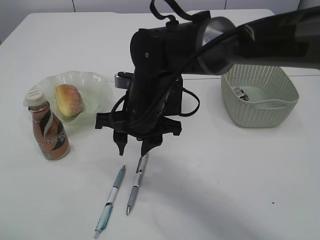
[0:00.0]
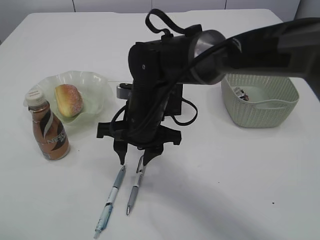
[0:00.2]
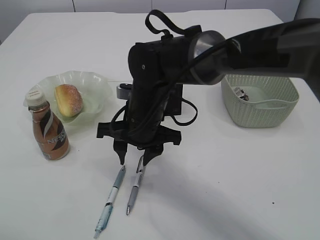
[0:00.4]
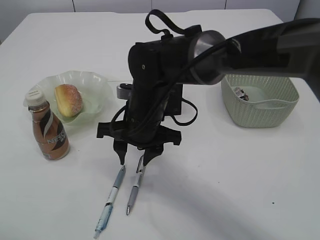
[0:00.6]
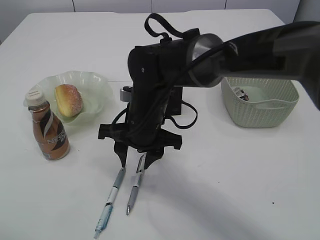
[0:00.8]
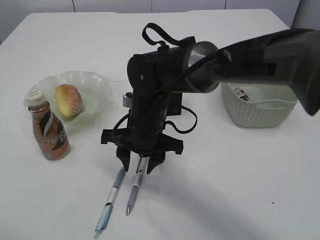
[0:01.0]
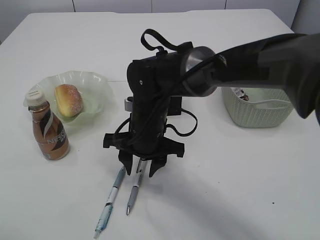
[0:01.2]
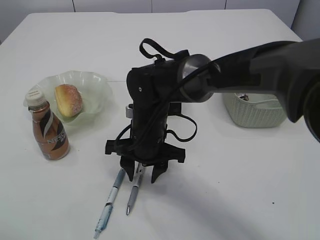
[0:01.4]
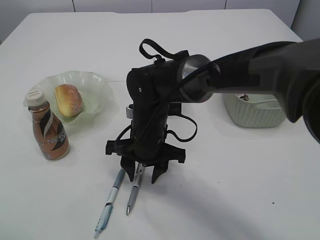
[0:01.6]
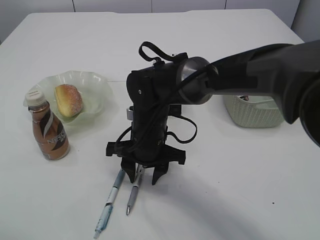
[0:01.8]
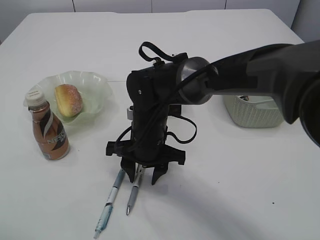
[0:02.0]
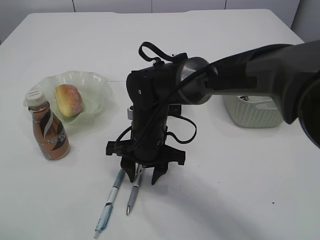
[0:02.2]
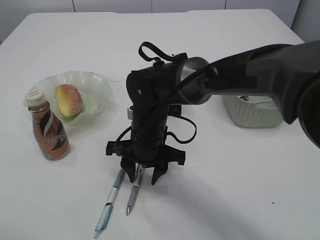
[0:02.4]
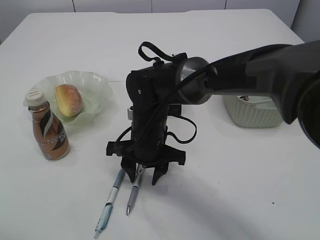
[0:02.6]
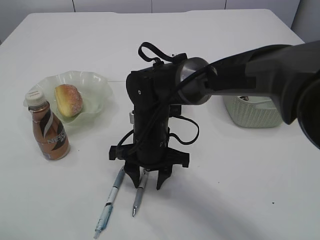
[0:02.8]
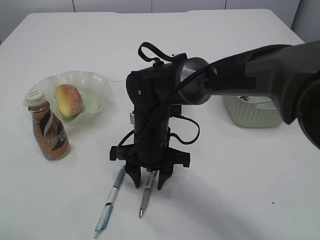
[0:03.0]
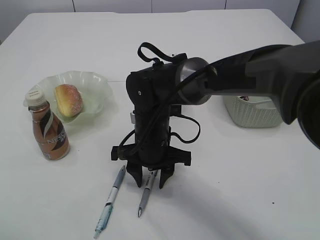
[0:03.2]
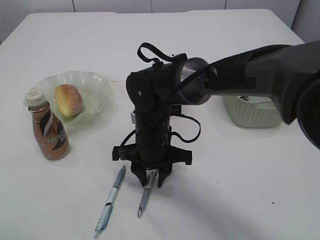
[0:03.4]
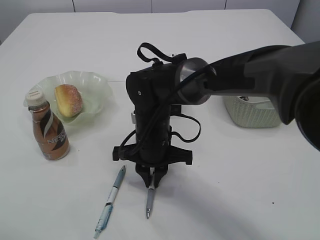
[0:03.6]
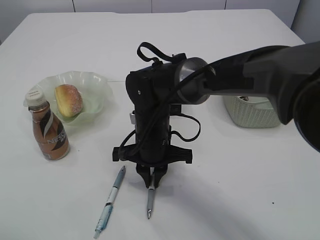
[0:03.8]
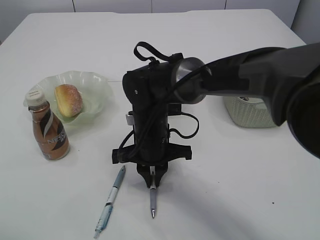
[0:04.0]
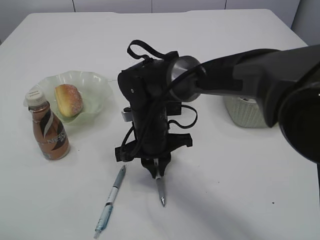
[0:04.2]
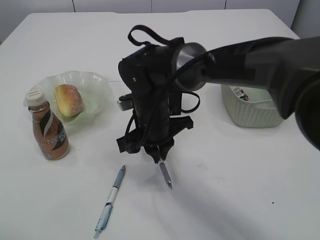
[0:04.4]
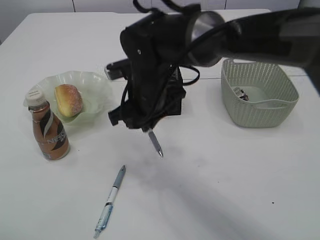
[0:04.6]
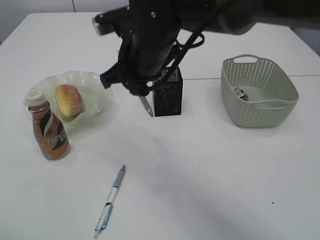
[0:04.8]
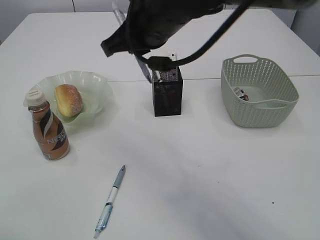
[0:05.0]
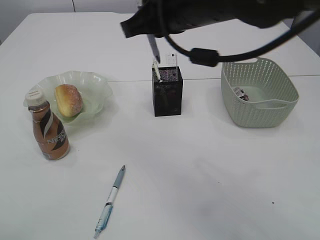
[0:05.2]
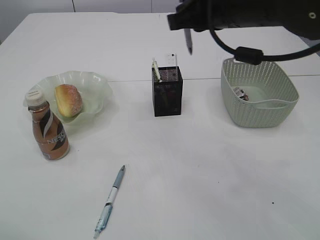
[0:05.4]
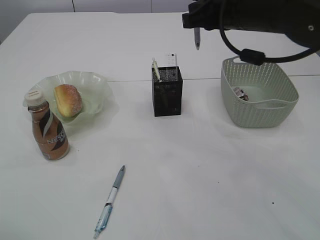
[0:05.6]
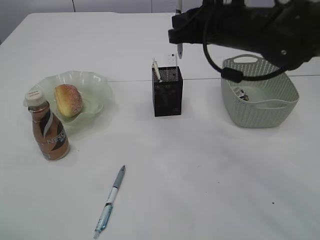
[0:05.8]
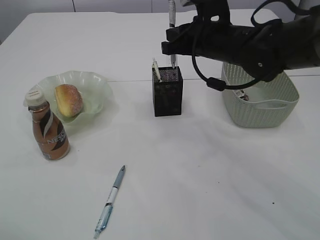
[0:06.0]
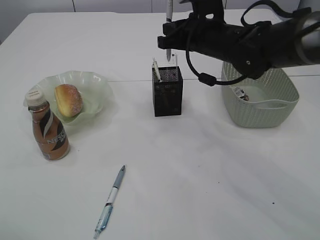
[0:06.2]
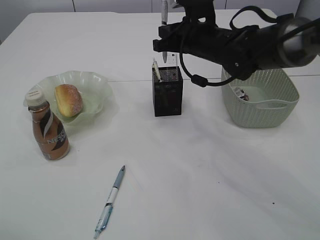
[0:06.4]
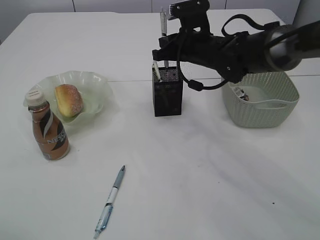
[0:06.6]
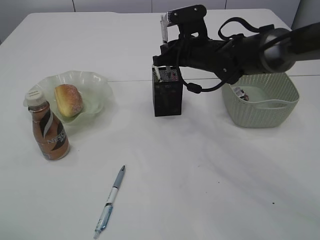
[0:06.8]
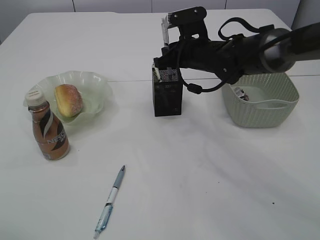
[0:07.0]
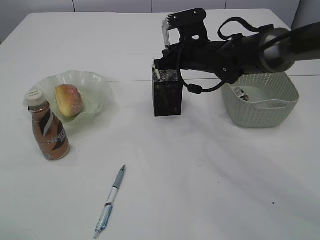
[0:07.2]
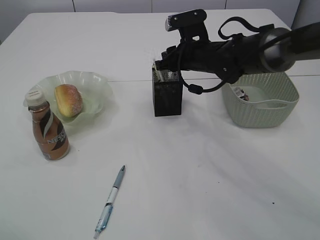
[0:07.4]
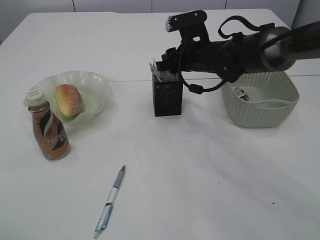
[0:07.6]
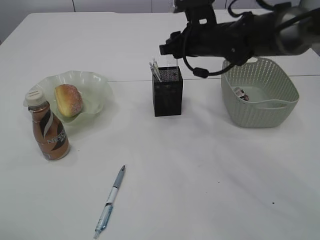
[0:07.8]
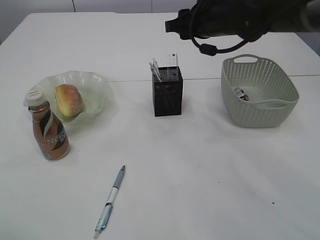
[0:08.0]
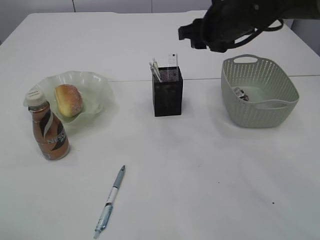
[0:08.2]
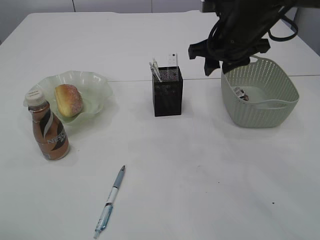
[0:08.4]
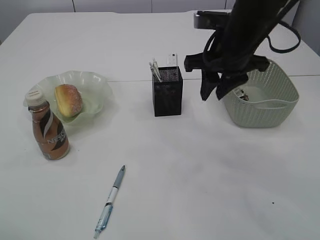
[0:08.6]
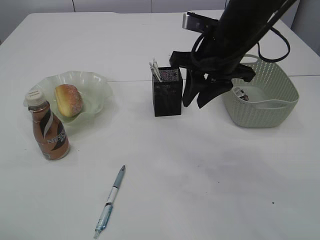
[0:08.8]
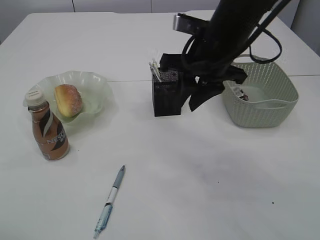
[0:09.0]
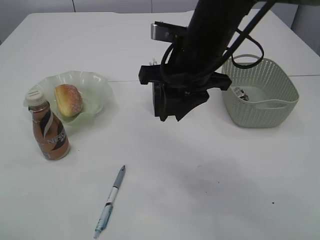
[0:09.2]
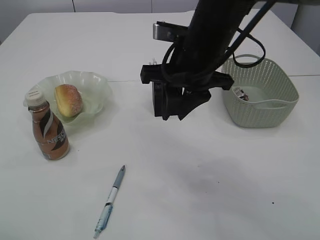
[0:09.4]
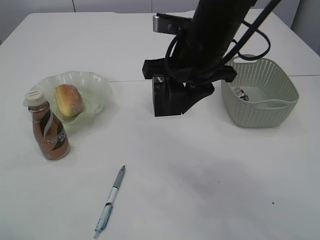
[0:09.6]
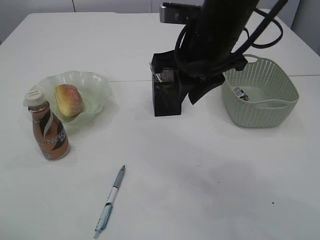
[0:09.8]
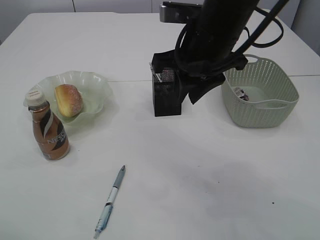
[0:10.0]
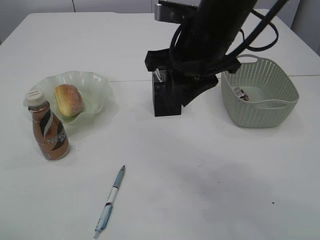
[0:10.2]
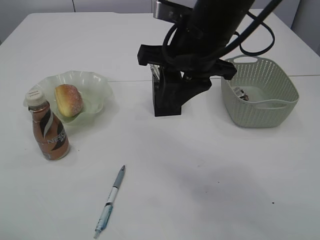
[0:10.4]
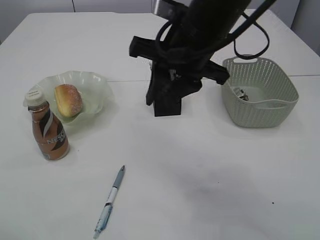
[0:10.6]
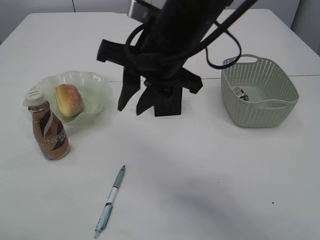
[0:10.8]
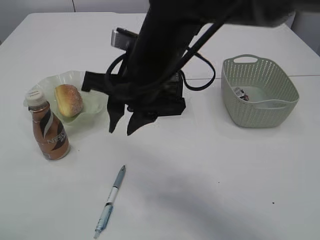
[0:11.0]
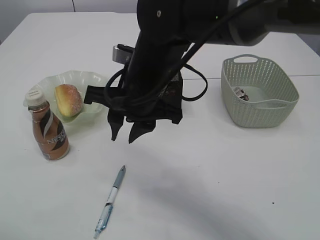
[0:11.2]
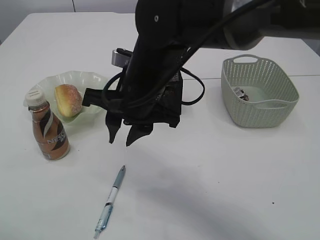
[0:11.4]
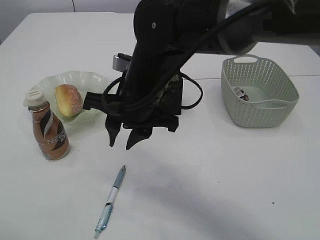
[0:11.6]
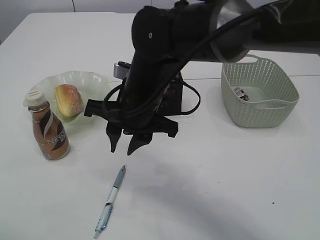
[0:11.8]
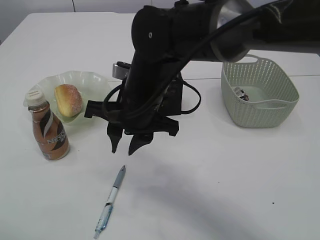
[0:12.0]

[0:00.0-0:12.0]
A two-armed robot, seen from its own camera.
Step, 0:00.0 to 0:04.4: Pick up the pen with right arm.
Step, 0:04.6 to 0:07.8: Place the pen into the pen holder.
0:00.0 to 0:01.6: The right gripper shifts about 5 cm downward.
0:01.6 to 0:03.0: The grippers make only small movements.
0:03.0 to 0:04.4: The right gripper closes.
0:04.4 to 0:06.0: The right gripper moves to the right, upward and forward, approximately 15 cm.
0:06.0 to 0:07.6: The right gripper heads forward and downward, covering approximately 10 cm, and opens its fingers.
0:07.6 to 0:09.0: The right gripper moves backward and upward, approximately 15 cm.
0:09.0 to 0:10.4: The right gripper moves about 5 cm.
0:10.4 to 0:12.0: The right gripper heads downward and to the left, covering about 10 cm.

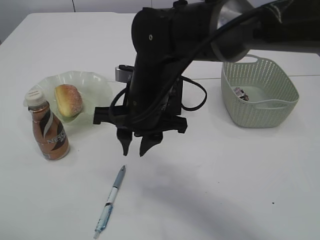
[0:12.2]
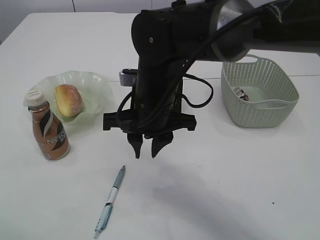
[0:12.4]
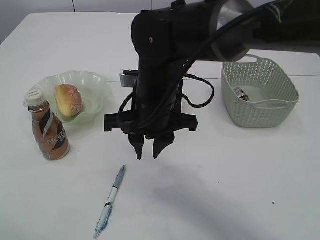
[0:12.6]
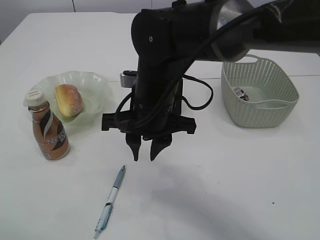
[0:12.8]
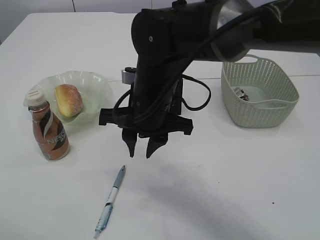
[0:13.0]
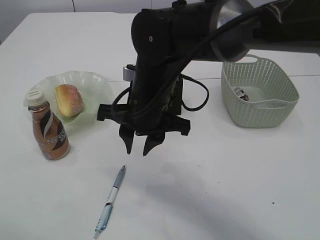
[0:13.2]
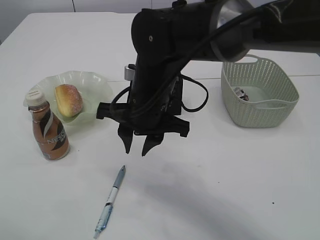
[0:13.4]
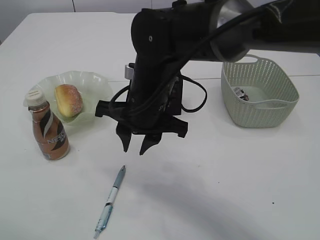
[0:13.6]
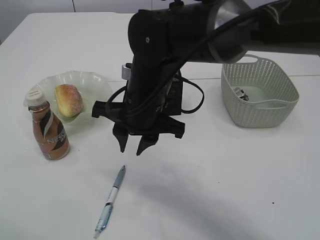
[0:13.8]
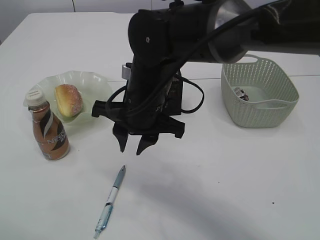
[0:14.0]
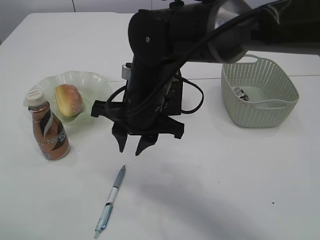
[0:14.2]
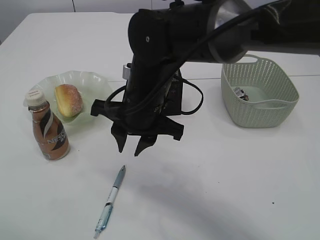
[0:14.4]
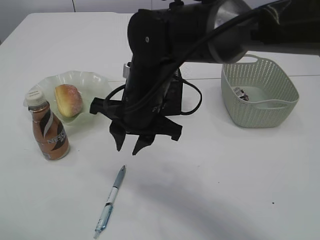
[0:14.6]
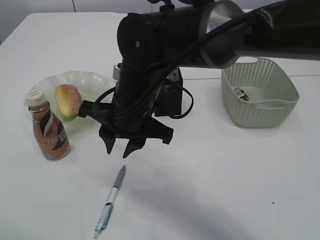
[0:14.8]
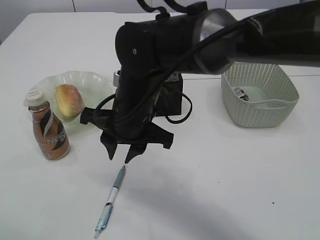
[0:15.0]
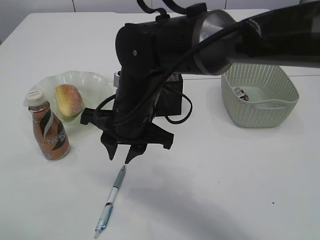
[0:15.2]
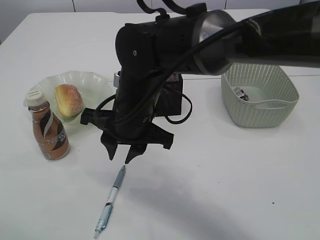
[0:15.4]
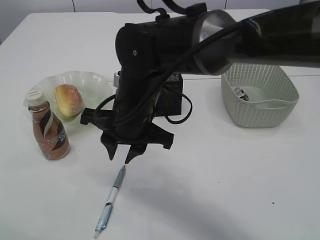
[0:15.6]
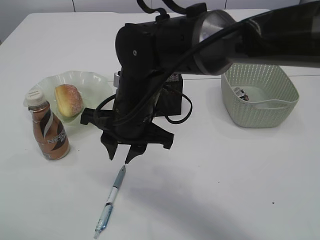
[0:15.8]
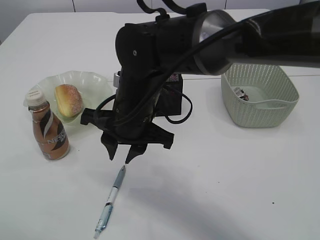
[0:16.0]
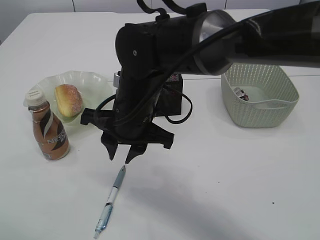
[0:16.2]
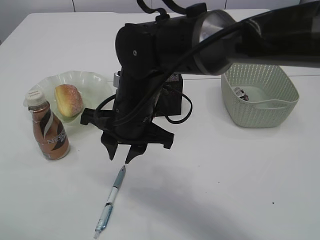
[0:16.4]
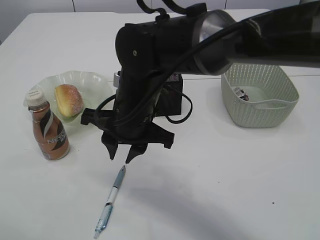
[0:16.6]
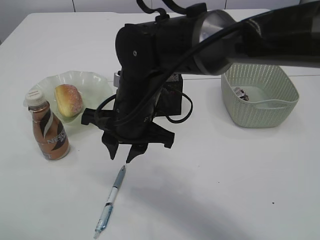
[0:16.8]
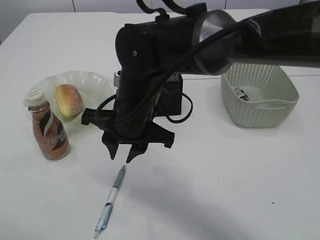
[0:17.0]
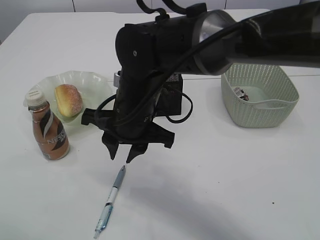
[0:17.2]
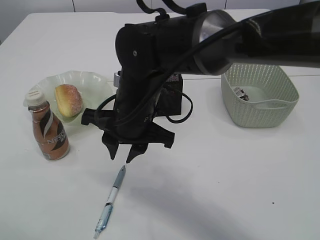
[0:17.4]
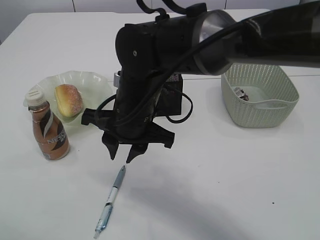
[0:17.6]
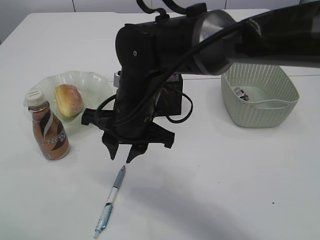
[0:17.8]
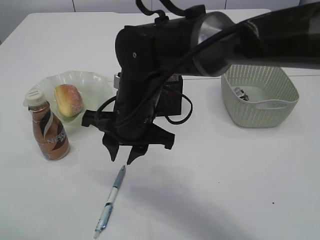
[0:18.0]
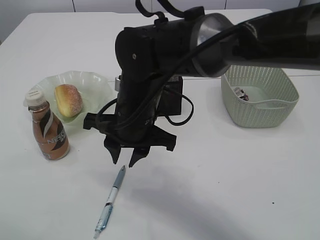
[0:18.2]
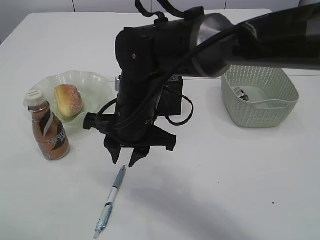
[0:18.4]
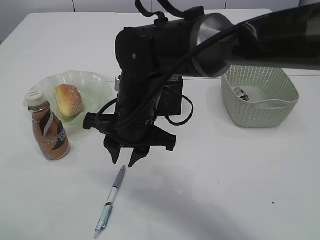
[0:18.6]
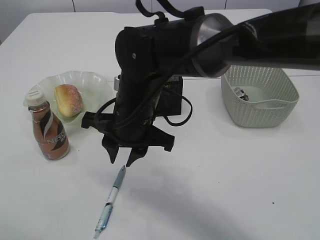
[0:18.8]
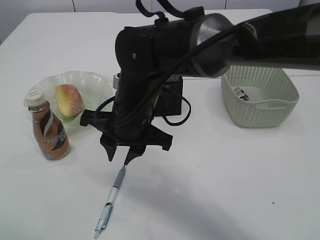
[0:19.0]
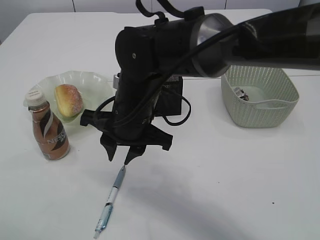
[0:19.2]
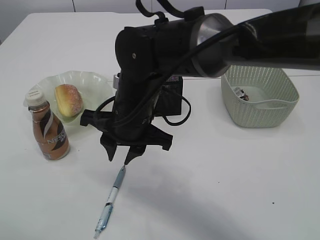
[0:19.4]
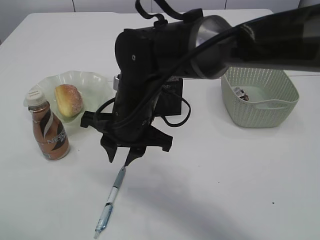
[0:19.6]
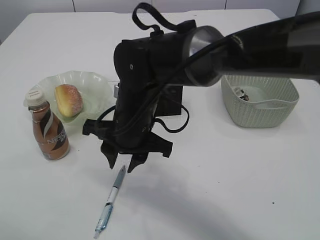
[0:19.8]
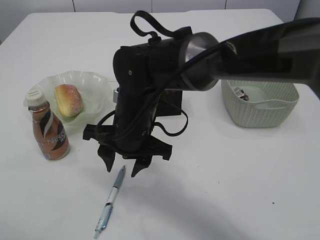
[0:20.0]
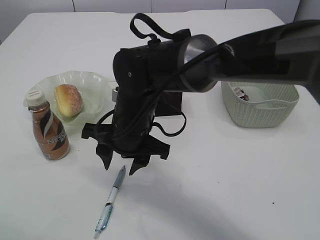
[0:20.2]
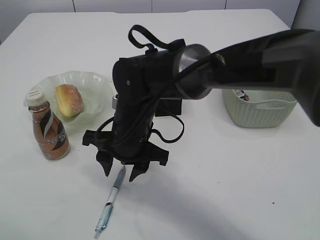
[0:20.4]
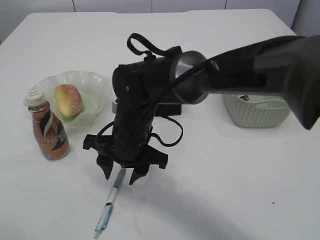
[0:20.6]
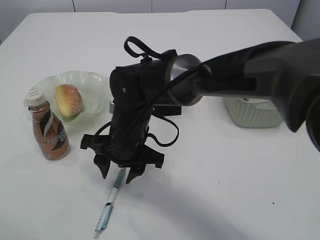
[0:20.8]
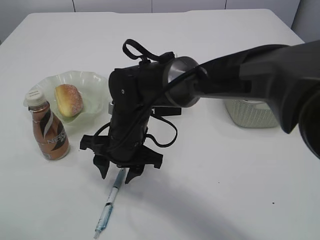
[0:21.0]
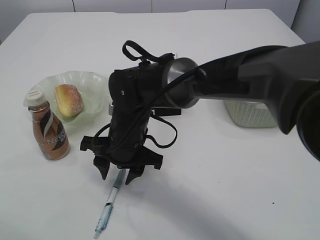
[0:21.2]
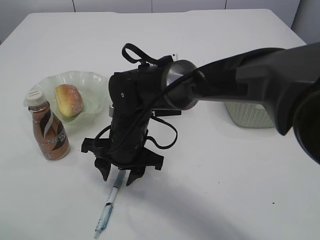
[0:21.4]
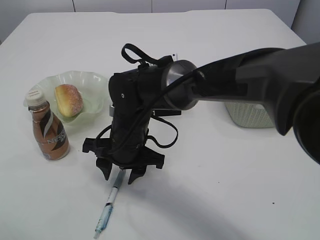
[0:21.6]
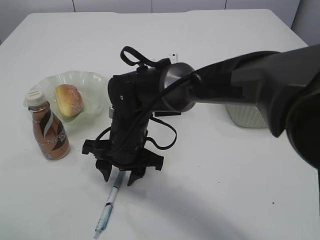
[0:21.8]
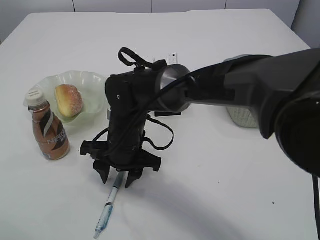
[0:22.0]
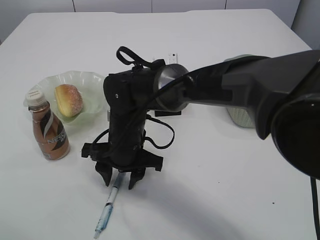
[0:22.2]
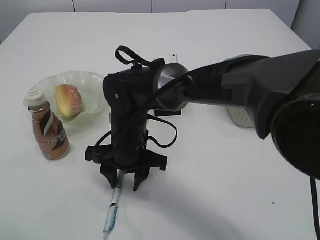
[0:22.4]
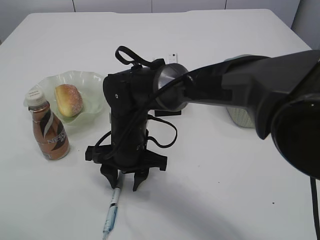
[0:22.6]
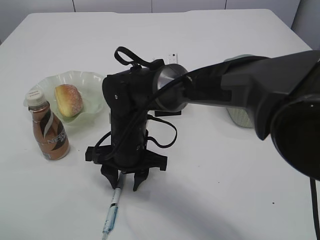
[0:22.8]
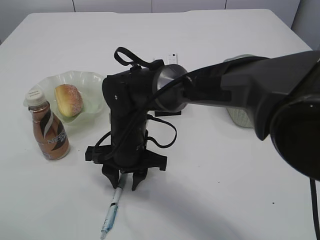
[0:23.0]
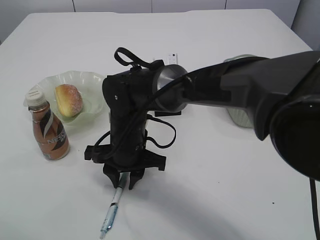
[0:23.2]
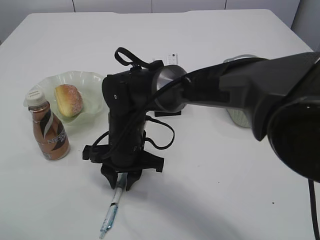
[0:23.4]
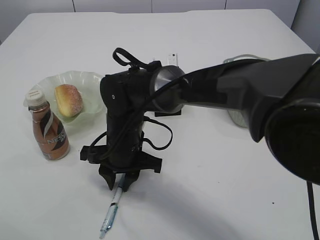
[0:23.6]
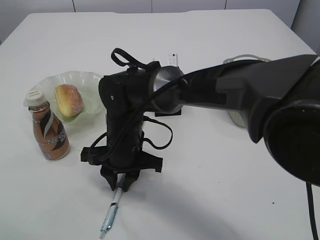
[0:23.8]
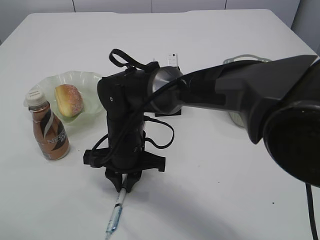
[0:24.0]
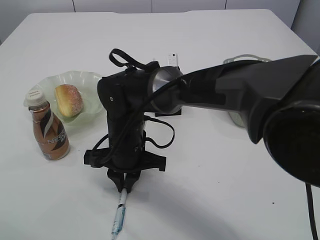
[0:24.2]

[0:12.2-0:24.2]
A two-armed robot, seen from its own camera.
0:12.2 to 0:15.2: The grippers make only small movements.
0:15.2 to 0:18.2: Both grippers stay about where they are.
0:18.2 to 0:19.8: The grippers make only small movements.
0:19.8 to 0:21.2: The right gripper changes place by about 5 cm.
0:21.2 to 0:22.6: The grippers stay close to where they were, moving slightly.
0:22.6 to 0:24.2: The right gripper closes.
